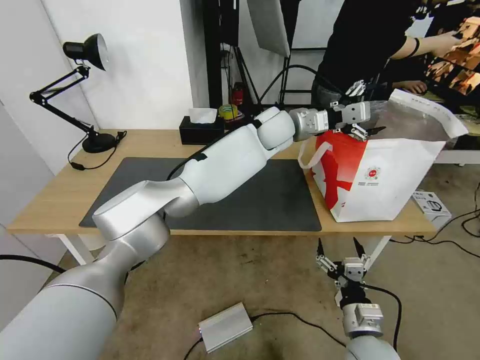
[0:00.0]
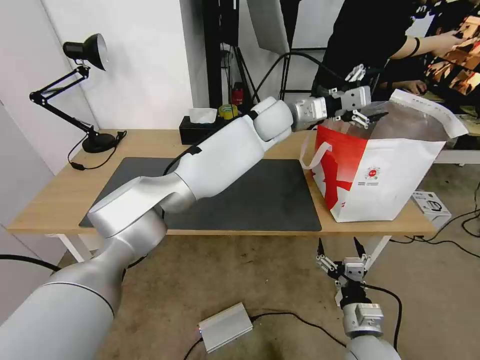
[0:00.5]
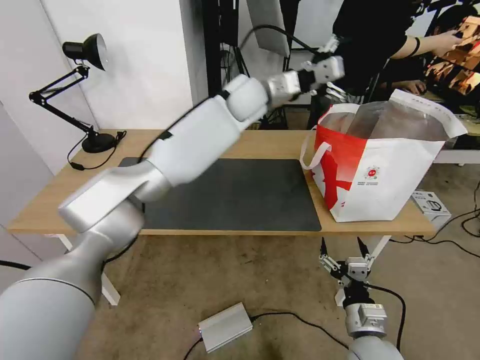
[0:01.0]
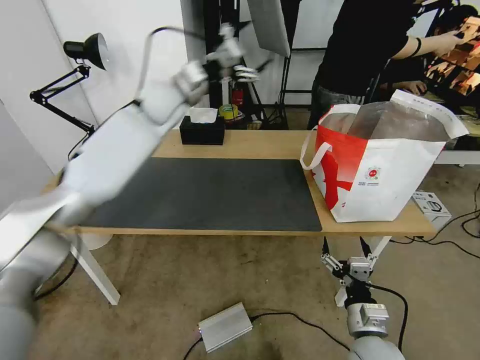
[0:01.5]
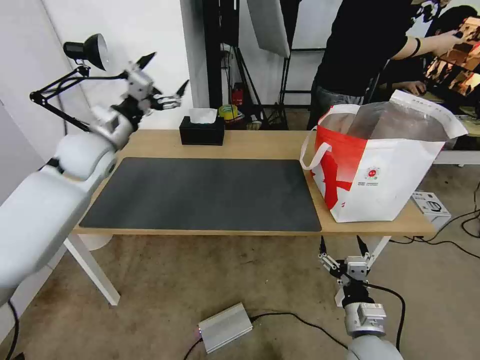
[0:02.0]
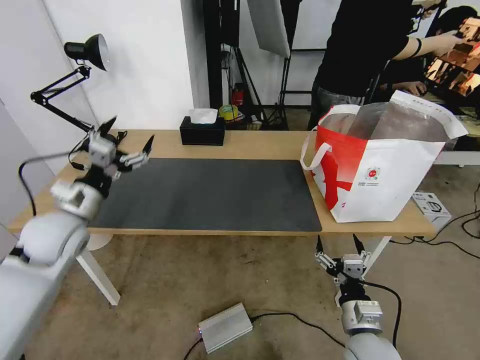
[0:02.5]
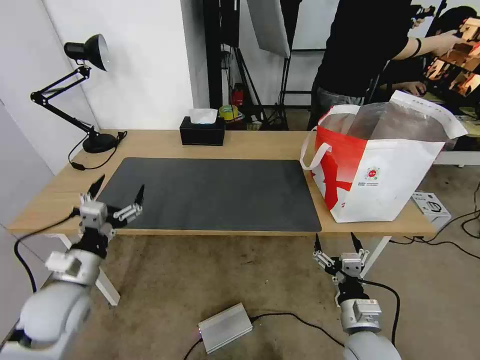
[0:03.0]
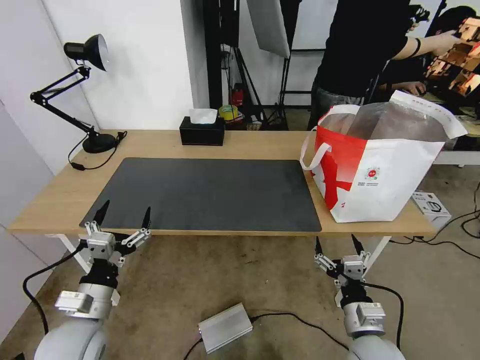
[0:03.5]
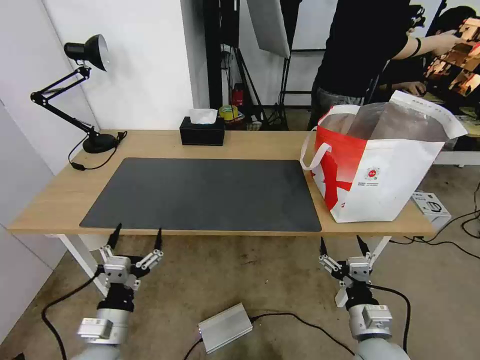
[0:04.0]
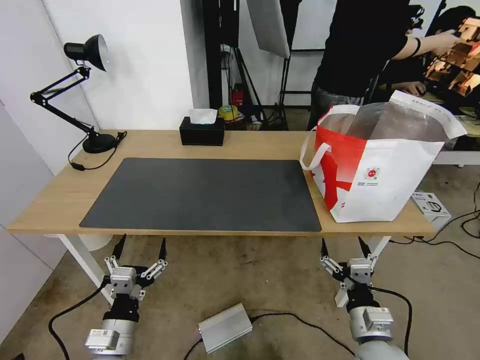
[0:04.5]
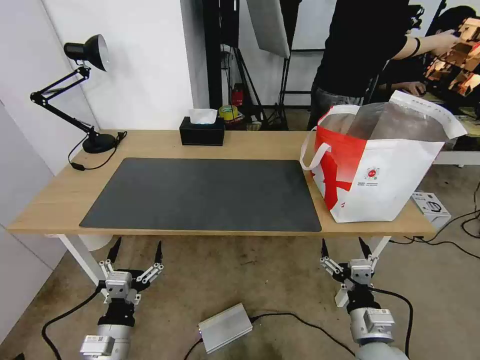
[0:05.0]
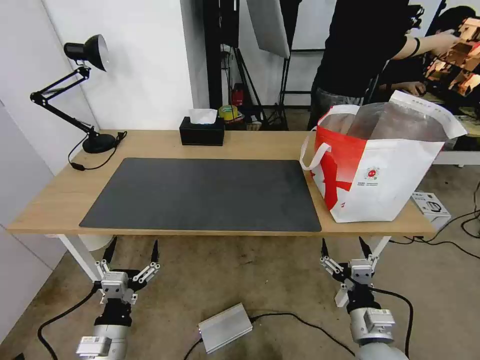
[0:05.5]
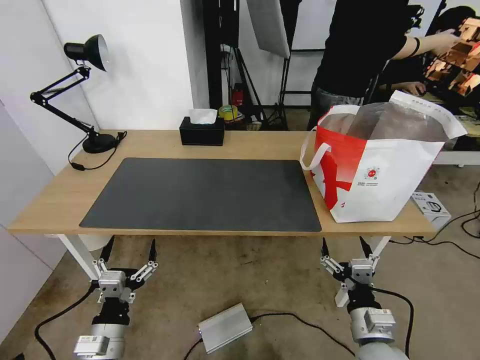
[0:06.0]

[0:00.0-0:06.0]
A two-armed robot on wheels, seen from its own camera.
Task of the whole recording: Pick up the trash from the table and place it into the takeout bag.
0:00.0 to 0:02.0: The left gripper is displaced to the left by some 40 cm.
0:02.0 to 0:04.0: The left gripper heads backward and downward, covering approximately 40 cm.
0:04.0 to 0:06.0: The grippers make only small movements.
